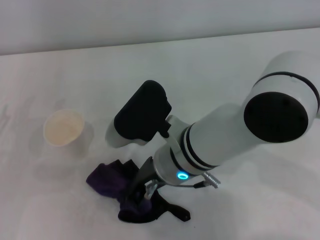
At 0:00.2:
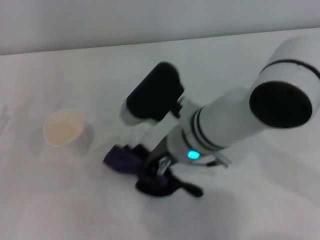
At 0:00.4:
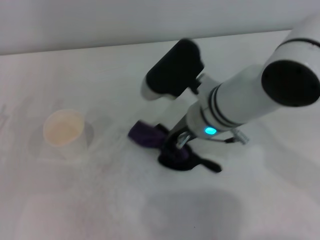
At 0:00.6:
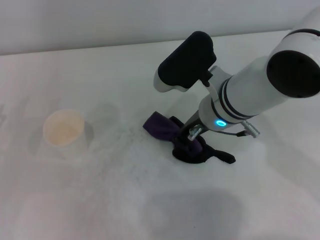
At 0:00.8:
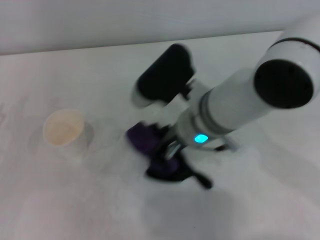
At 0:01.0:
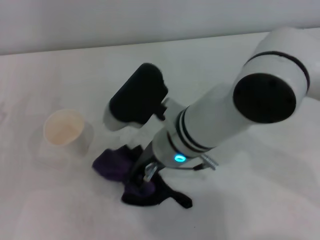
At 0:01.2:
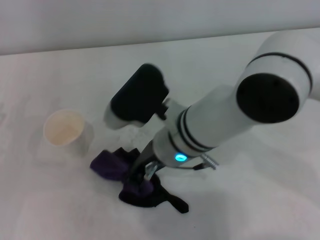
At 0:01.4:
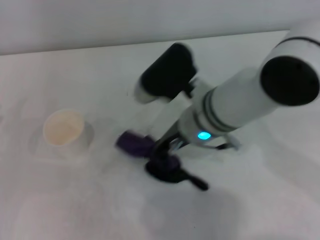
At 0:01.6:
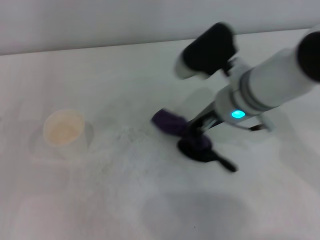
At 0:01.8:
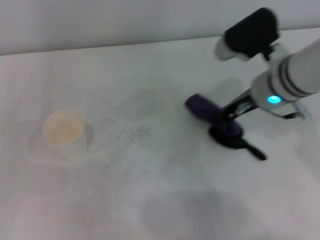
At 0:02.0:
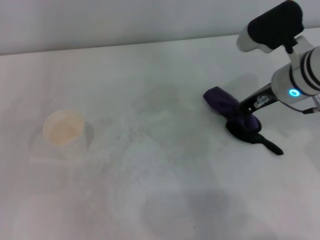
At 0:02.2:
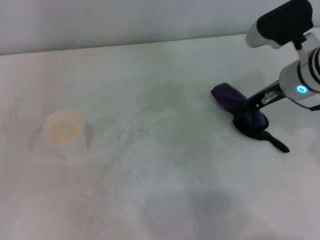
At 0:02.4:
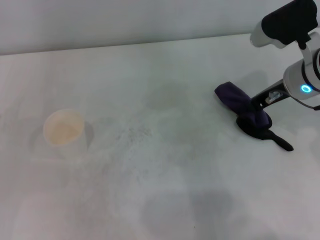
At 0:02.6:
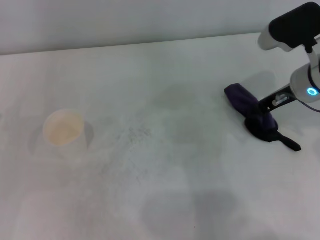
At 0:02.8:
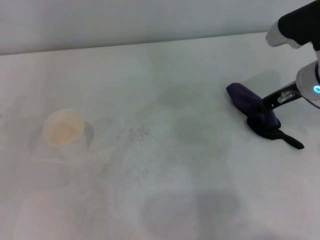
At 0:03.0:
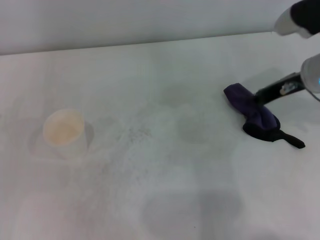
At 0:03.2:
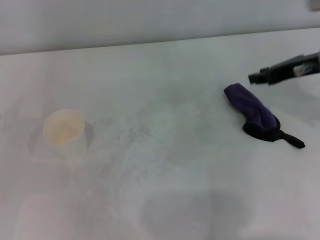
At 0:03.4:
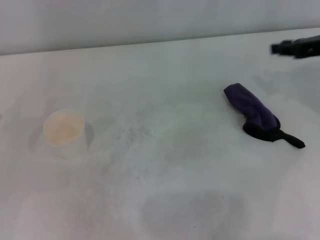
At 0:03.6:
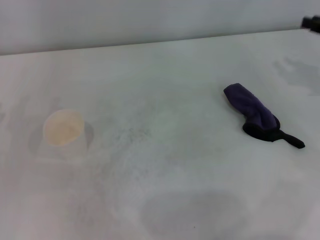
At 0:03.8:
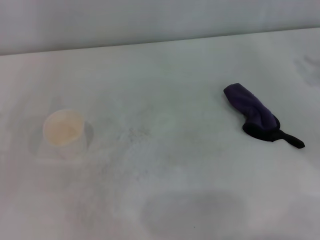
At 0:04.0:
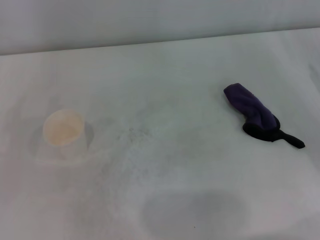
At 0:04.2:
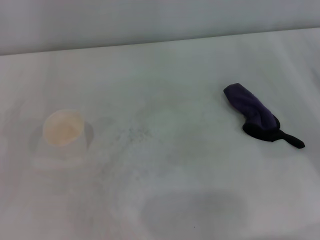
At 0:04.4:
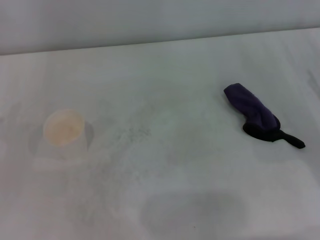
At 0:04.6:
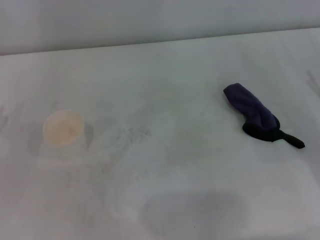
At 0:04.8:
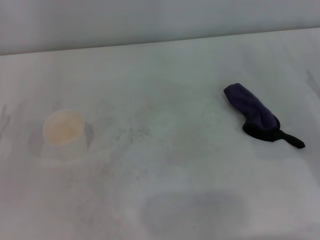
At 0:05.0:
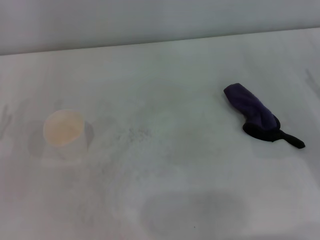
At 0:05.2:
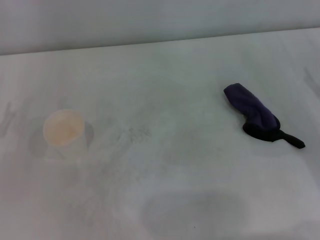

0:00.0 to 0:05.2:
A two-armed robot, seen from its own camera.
Step, 0:00.0 to 0:02.0: Wipe the stains off the table with the right gripper.
Step, 0:02.2 to 0:02.8: Place the rag on the table with the right gripper.
0:00.0 to 0:01.8: The right gripper swings left and right, about 15 cm each way, with 2 reversals.
0:01.8 to 0:03.4: The right gripper travels to the right by approximately 15 cm, and opens.
0:03.4 to 0:05.2: The right gripper goes some 15 cm downward and backward, and opens its fingers.
